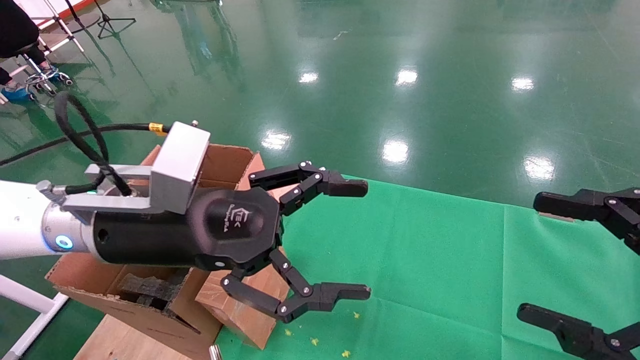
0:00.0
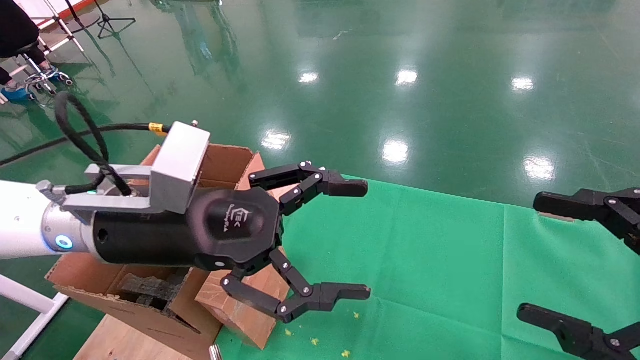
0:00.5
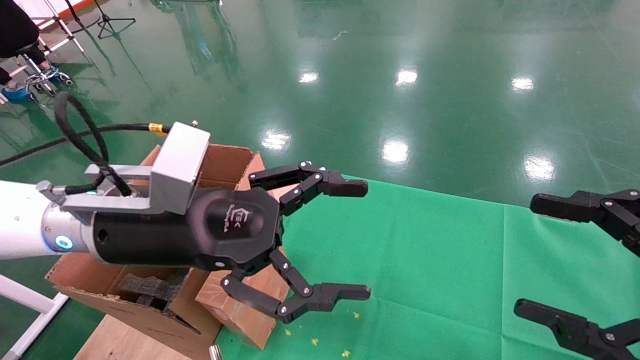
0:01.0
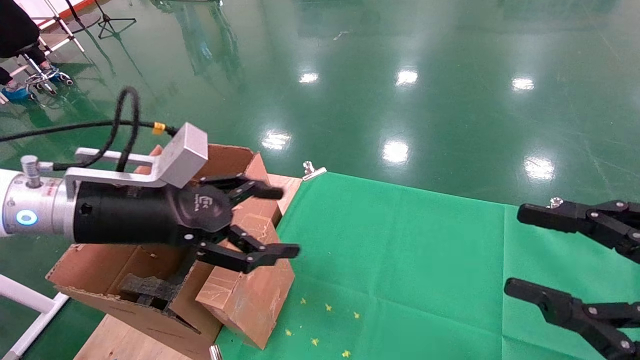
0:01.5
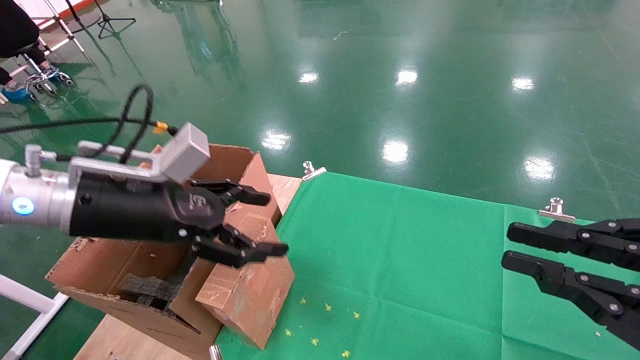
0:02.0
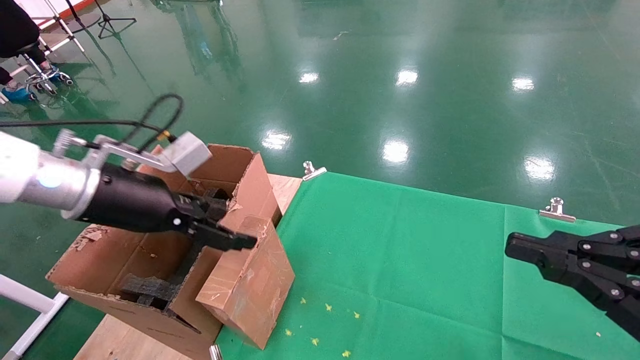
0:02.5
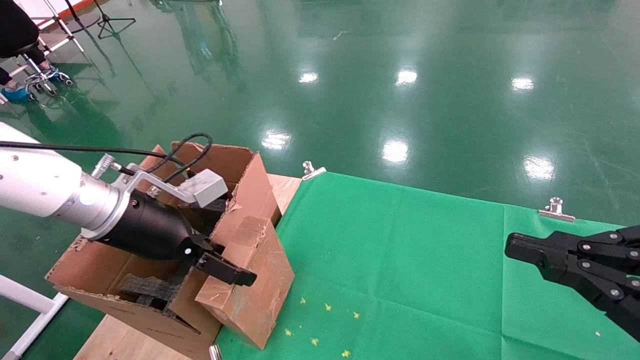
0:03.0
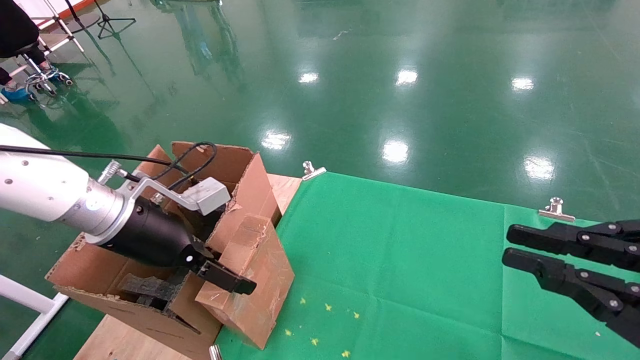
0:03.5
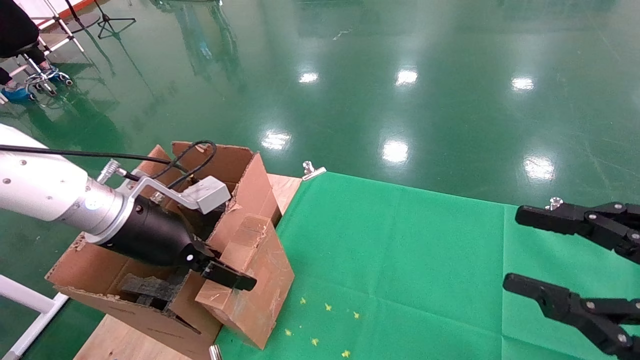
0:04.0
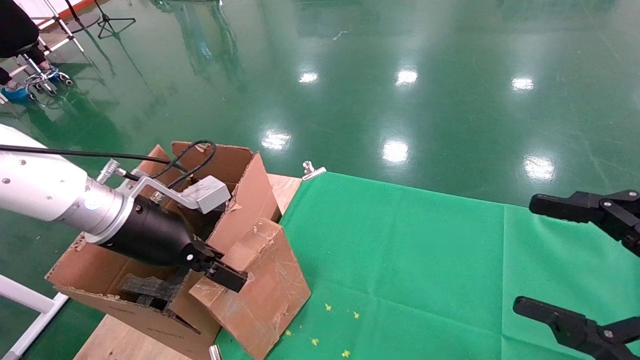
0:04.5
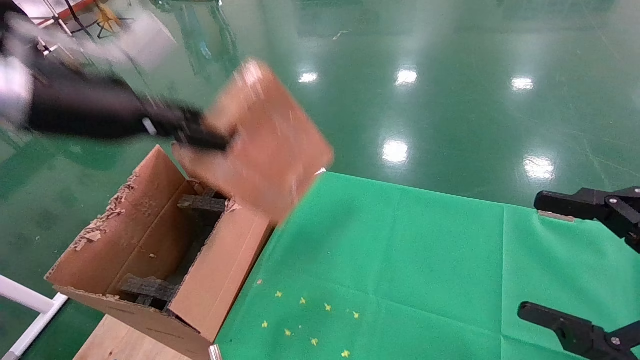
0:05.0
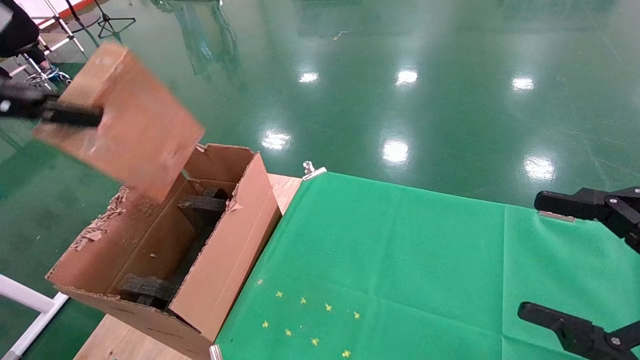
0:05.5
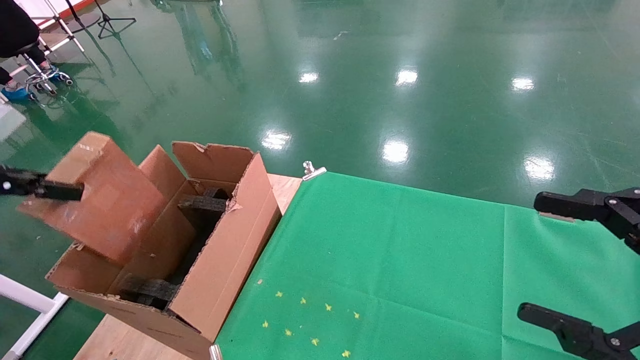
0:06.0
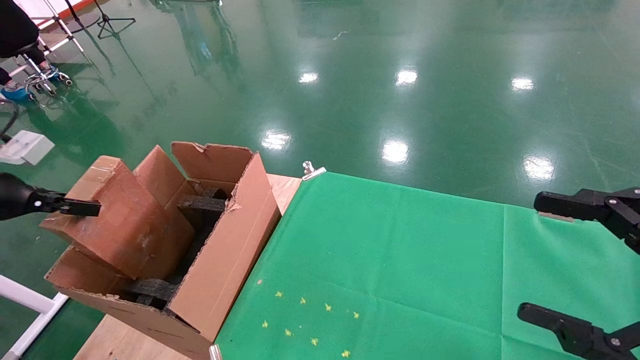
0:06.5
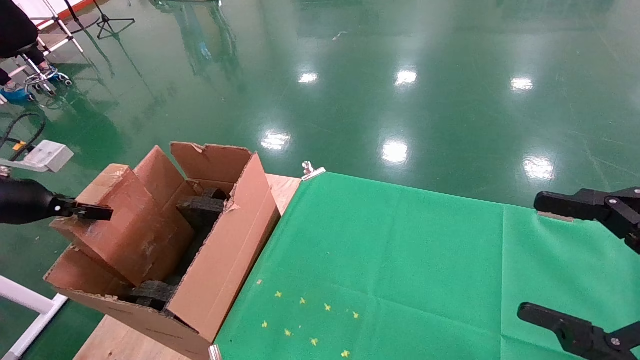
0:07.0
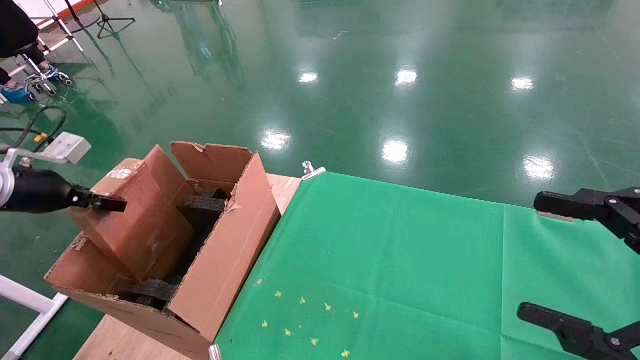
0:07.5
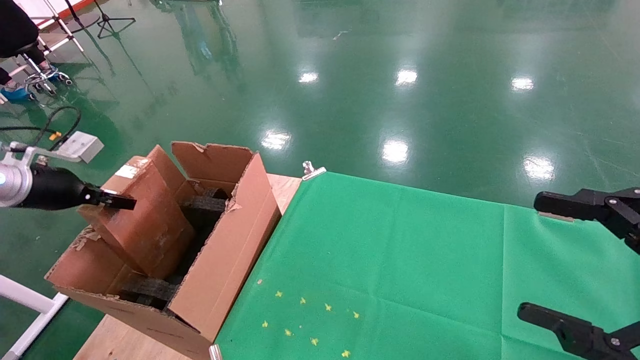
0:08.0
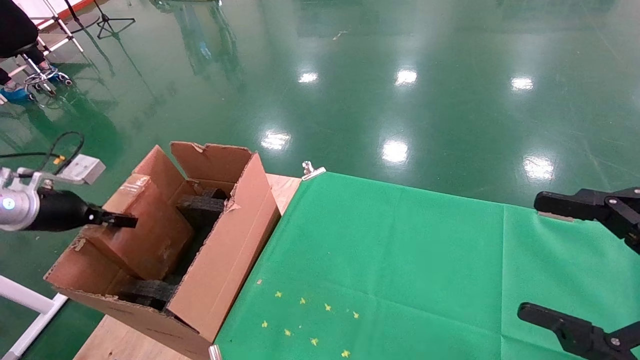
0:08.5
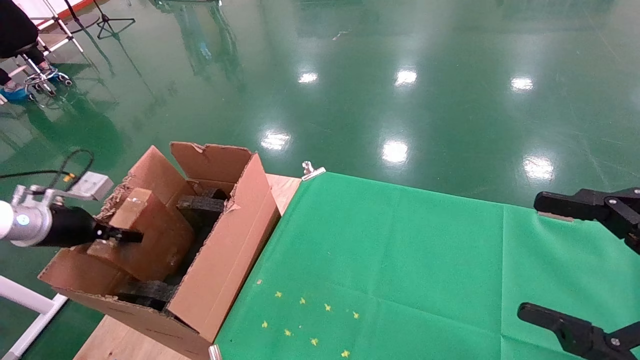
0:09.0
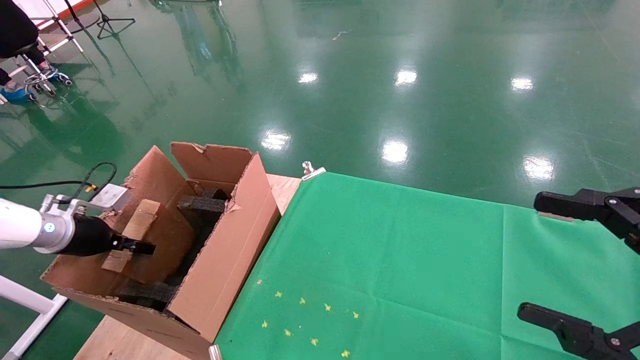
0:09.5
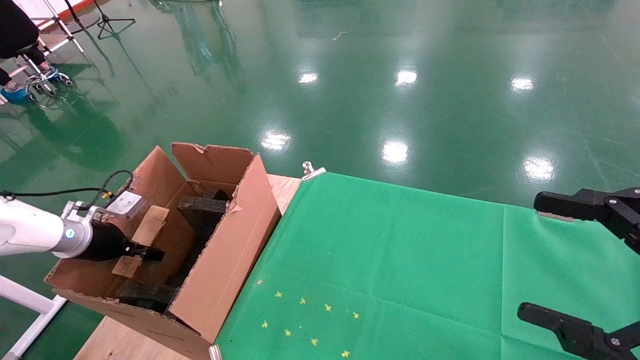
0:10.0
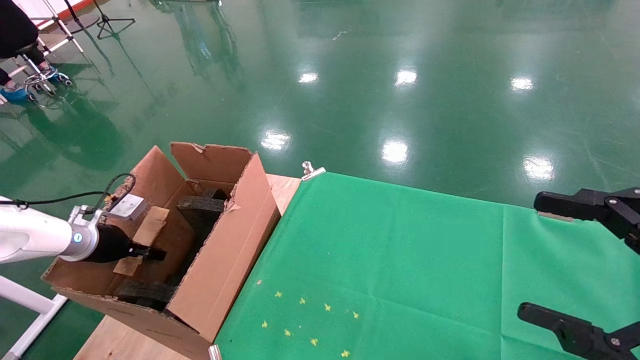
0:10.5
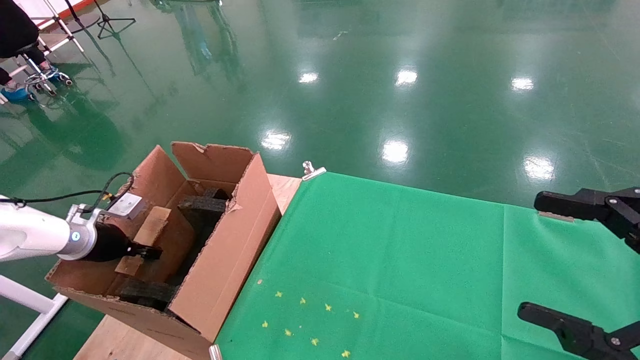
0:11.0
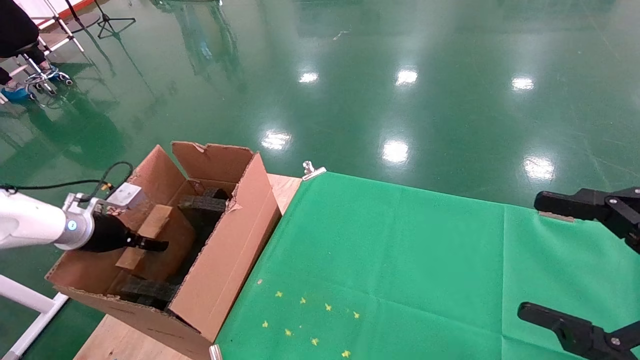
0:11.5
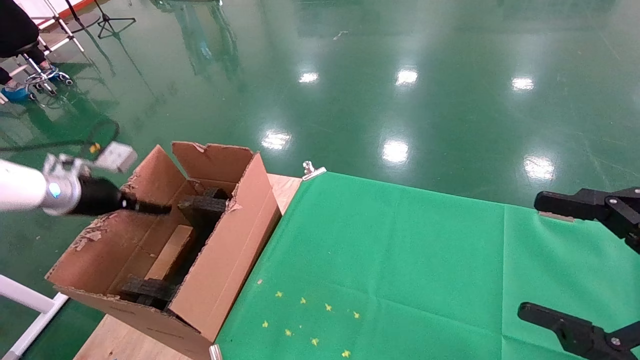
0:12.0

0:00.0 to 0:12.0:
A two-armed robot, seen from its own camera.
Task of the whole recording: using a robotic arm to pick up a cardboard box and palace it the carton.
Step, 0:01.5 to 0:04.0: Pick up the mouse and the power cord paper box.
0:00.0 to 0:02.0: The right gripper closes; the left gripper is displaced to the left by some 10 cm.
0:04.0 to 0:06.0: The left gripper is displaced to the left by some 25 cm, and closes up, while the right gripper opens up.
0:06.0 to 0:08.0: The left gripper goes some 10 cm forward and downward.
0:08.0 to 0:10.0: The left gripper is displaced downward by approximately 15 cm.
0:10.0 to 0:12.0: The left gripper travels upward by some 10 cm, and opens up.

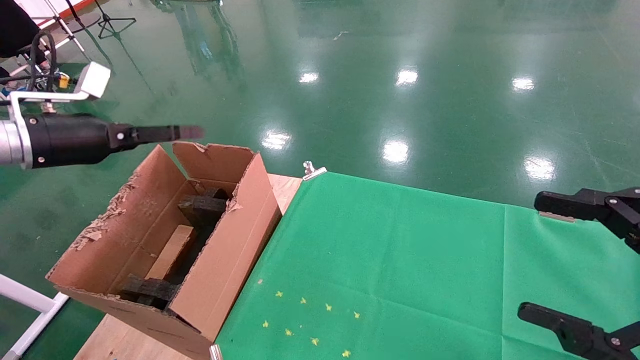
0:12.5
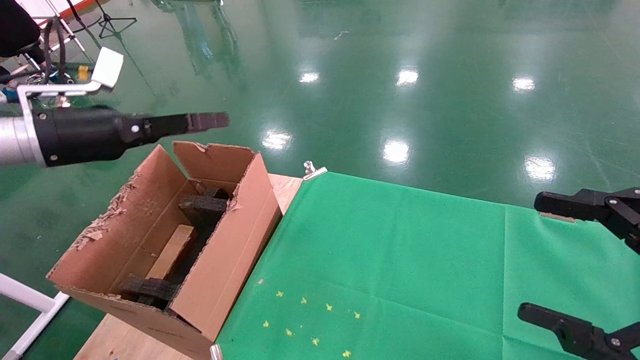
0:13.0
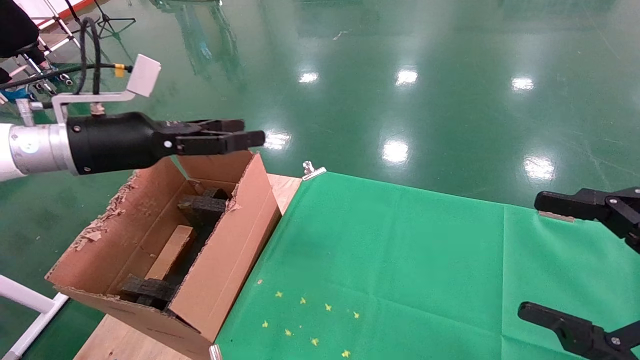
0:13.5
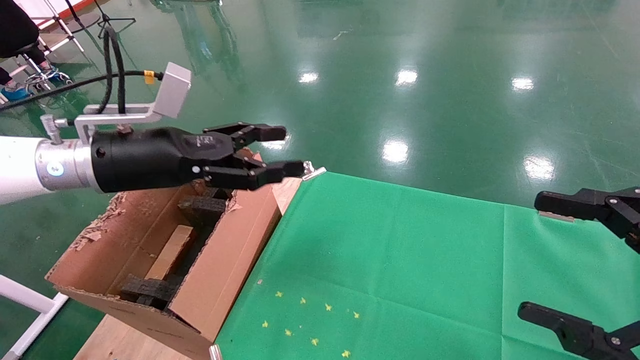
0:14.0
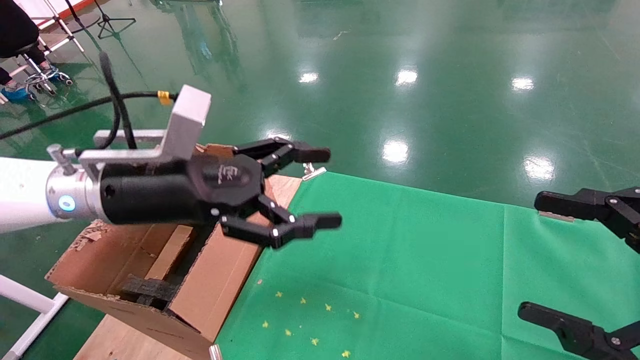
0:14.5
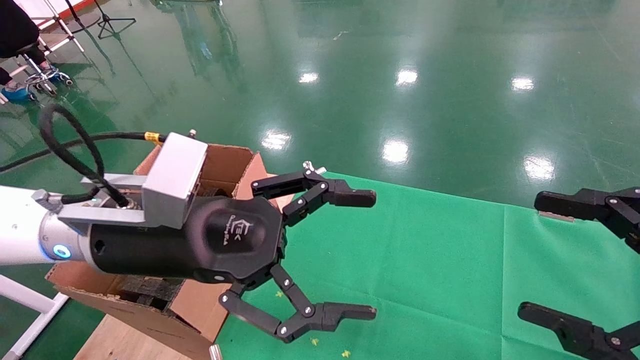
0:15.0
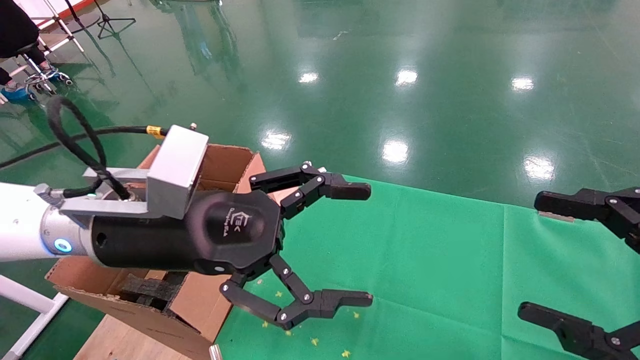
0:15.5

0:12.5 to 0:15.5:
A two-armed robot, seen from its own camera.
Task of the whole recording: using a robotic arm to pick up a cardboard box and palace it the carton.
0:12.5 to 0:14.0: The left gripper goes about 15 cm to the right.
0:14.0 to 0:15.5: The left gripper goes some 10 cm to the right and backward.

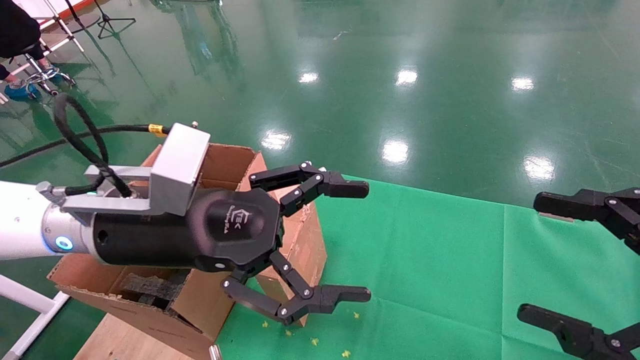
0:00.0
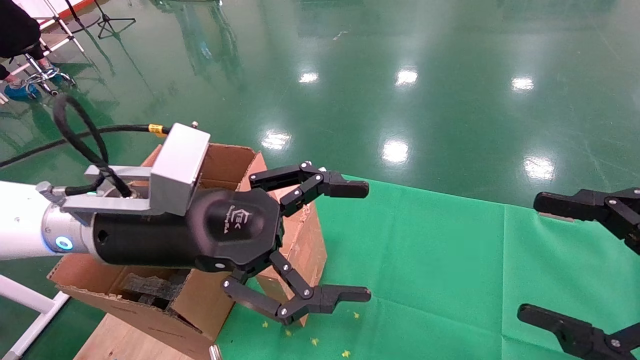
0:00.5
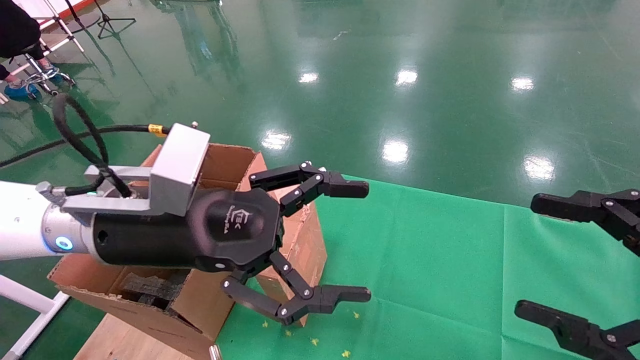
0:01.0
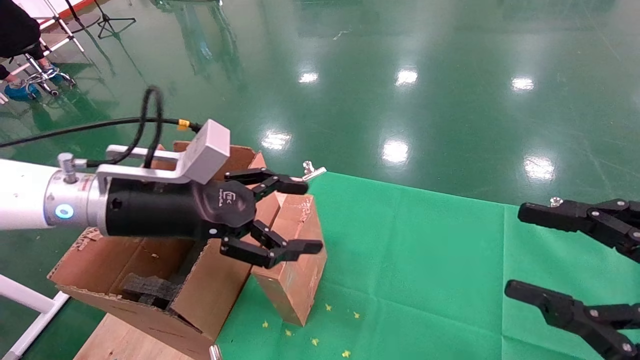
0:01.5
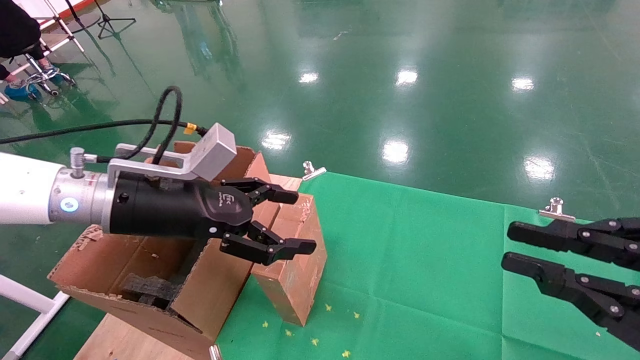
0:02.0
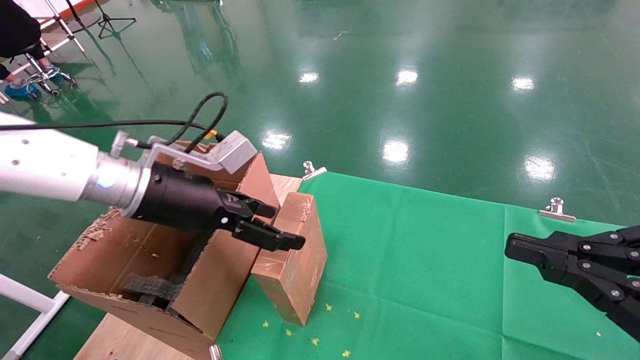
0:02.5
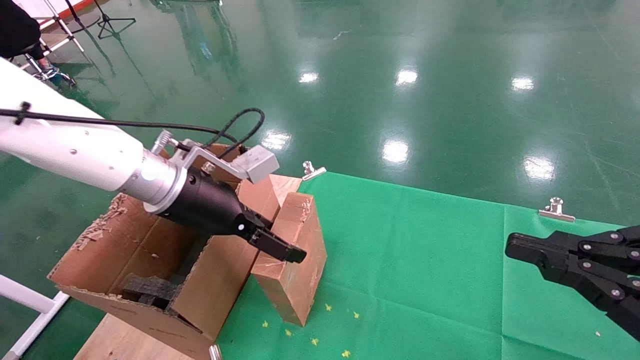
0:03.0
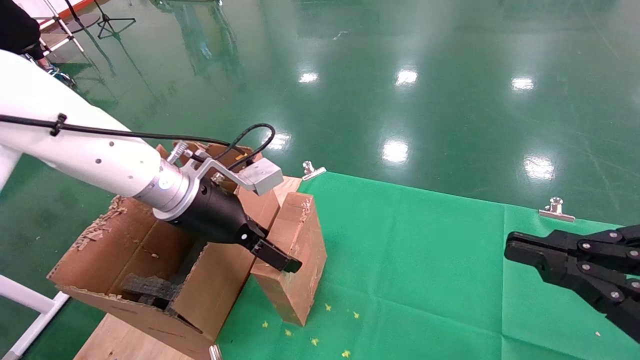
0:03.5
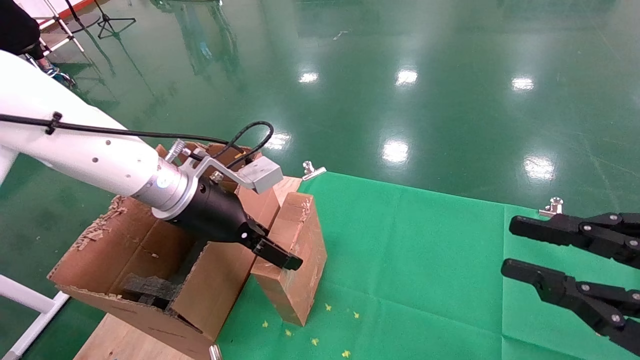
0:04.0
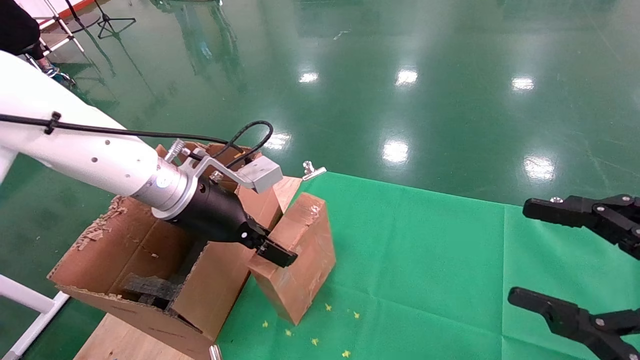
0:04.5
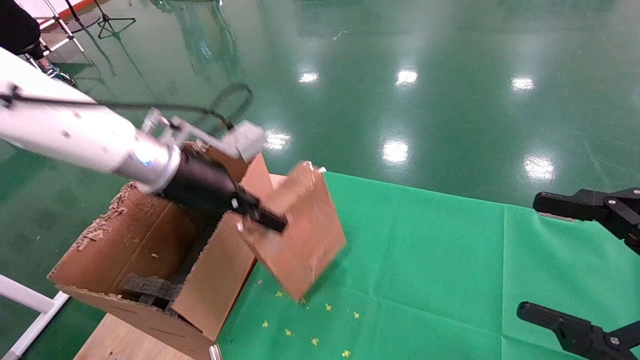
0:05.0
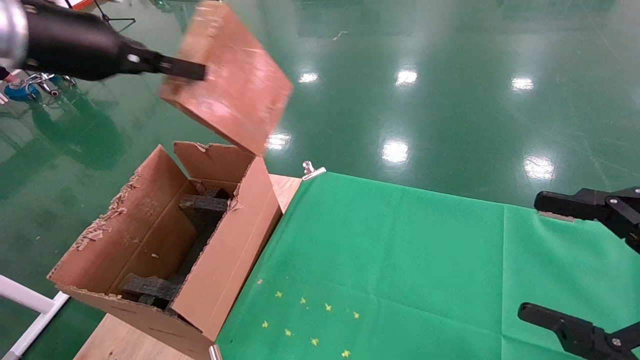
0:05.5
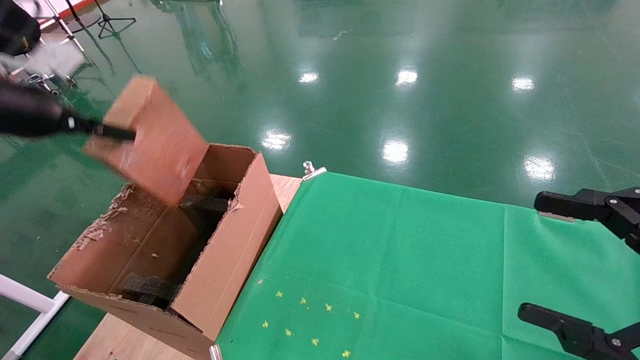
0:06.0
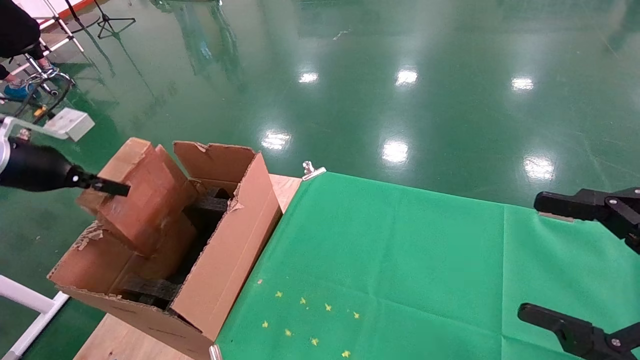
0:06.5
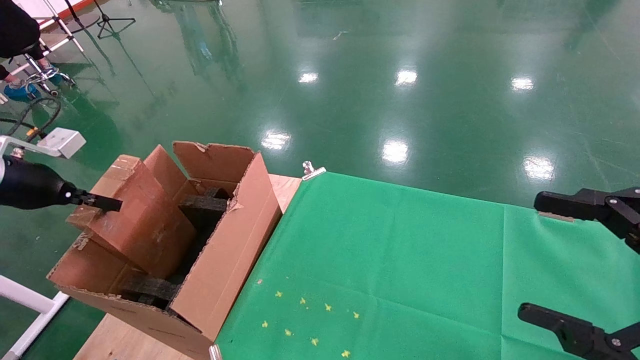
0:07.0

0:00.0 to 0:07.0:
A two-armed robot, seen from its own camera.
Task of the whole recording: using a robotic arm to pick up a cardboard box and palace it the carton.
Step, 0:01.5 to 0:04.5: Pick up the mouse and the power cord paper box.
0:00.0 to 0:02.0: The right gripper closes up. Meanwhile the left gripper moves to the left, roughly 5 cm.
0:02.0 to 0:03.5: The left gripper travels forward by some 5 cm.
0:03.5 to 0:05.0: The right gripper opens up. Meanwhile the left gripper shifts by some 5 cm, and closes.
0:05.0 to 0:07.0: The left gripper goes approximately 30 cm to the left.
